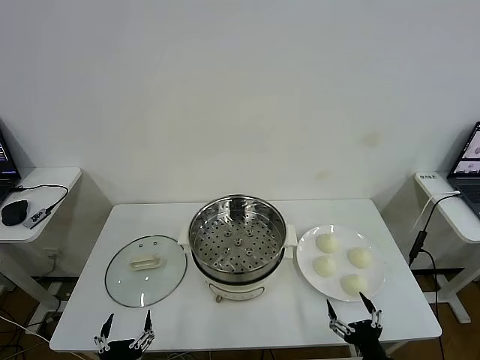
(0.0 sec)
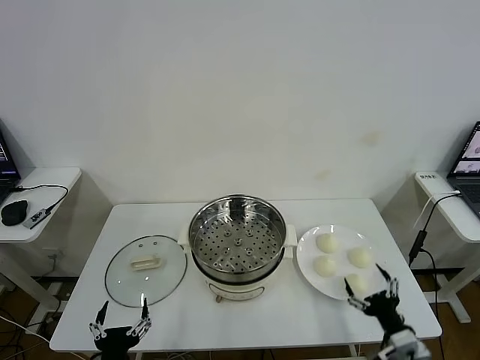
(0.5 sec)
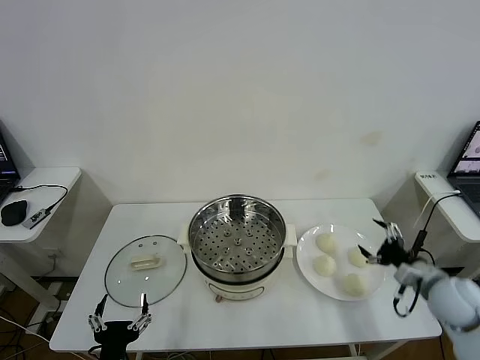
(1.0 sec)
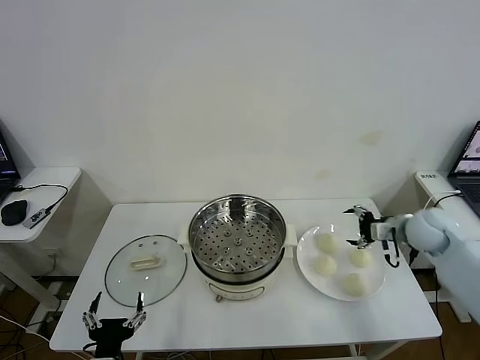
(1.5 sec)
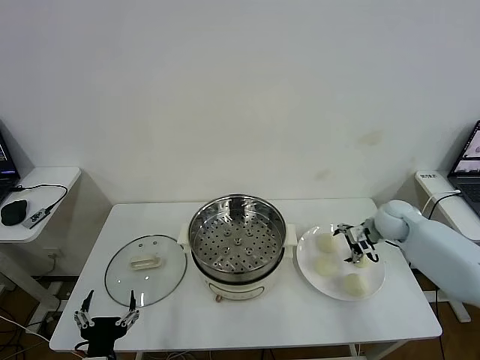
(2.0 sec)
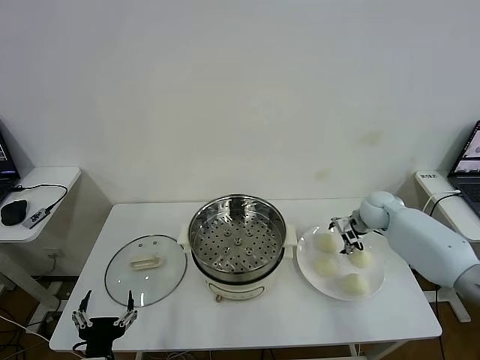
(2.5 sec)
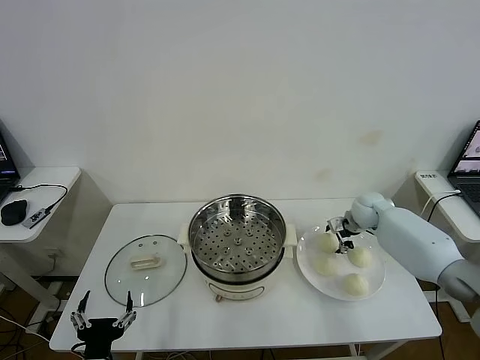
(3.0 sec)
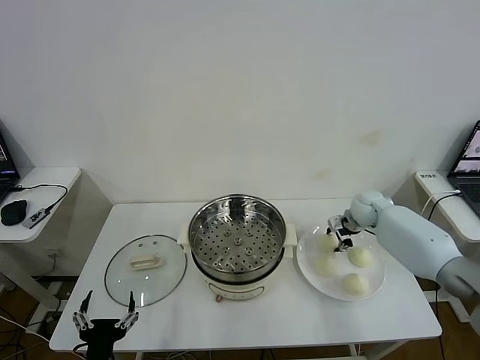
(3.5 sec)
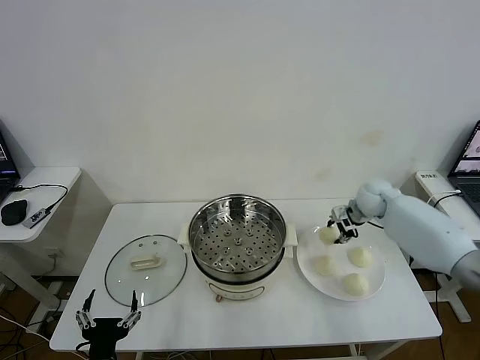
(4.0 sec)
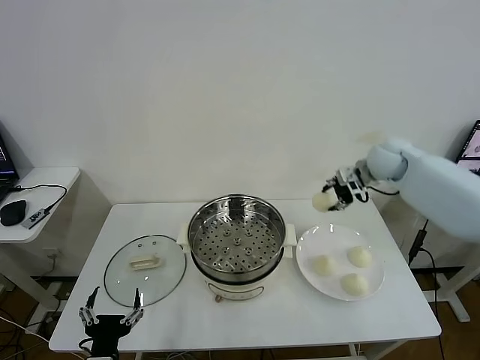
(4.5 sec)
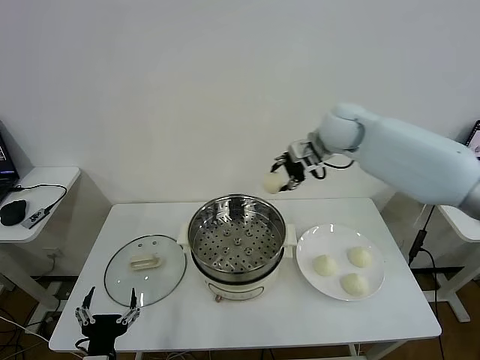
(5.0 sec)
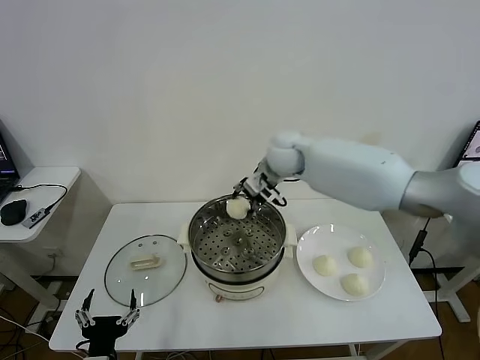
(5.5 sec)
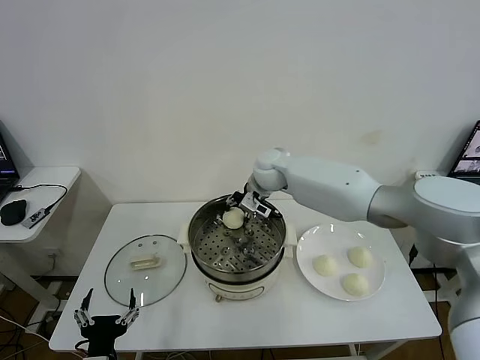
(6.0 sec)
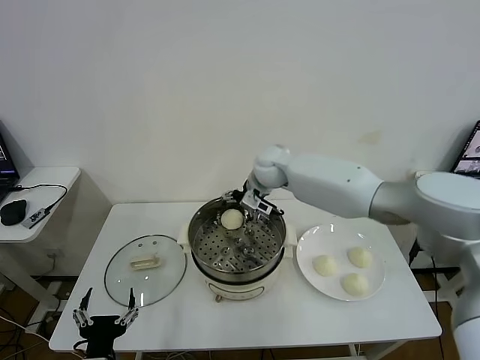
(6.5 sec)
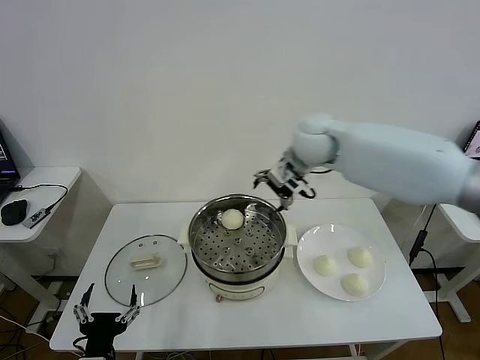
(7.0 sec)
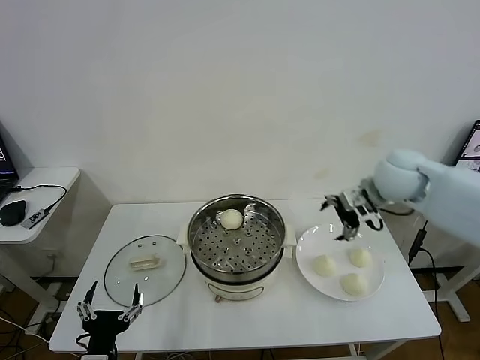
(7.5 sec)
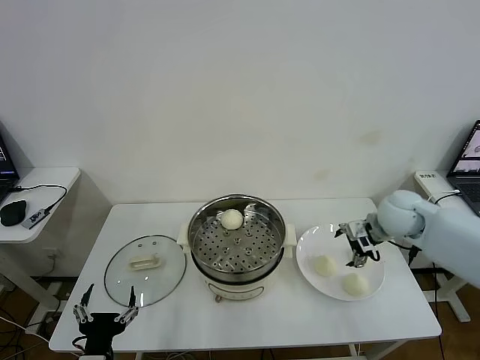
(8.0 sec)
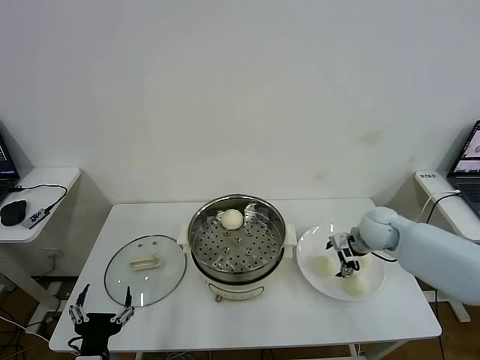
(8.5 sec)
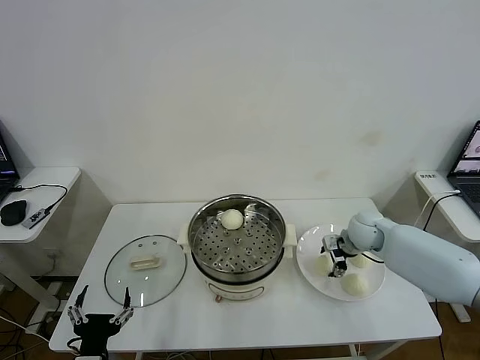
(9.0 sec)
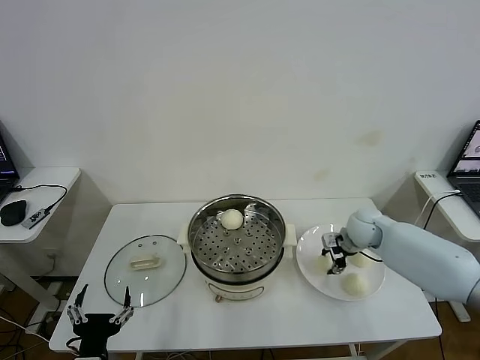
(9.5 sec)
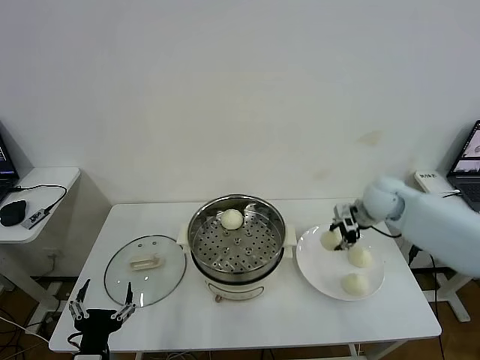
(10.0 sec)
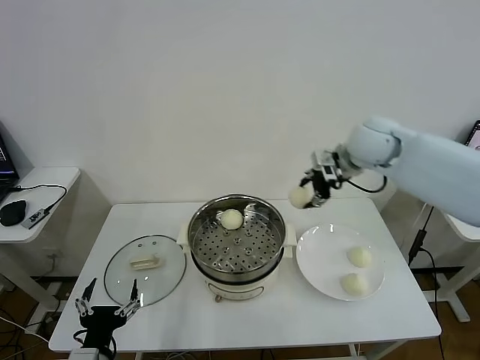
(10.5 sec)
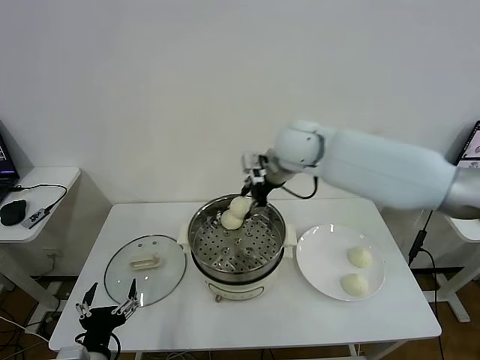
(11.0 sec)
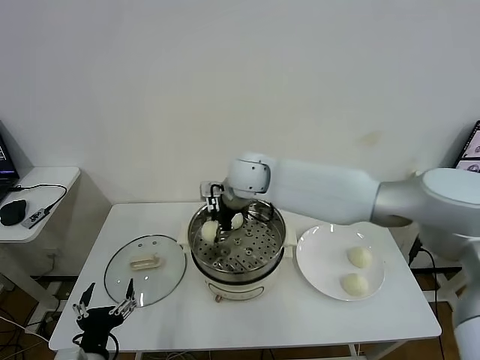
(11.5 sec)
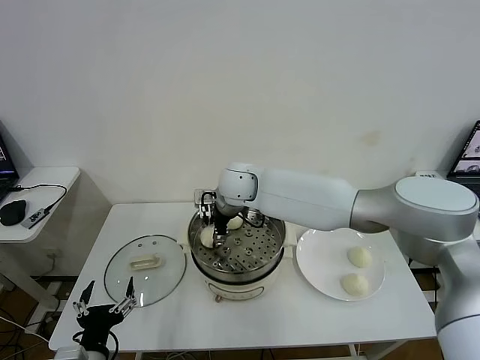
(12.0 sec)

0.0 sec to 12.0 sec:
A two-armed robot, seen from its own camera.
Task of the whole recording: take steamed baozi put them in steamer then cover it.
Step, 0.0 sec to 3.5 sec: Grasp the baozi in the plate with right gripper.
Step, 4.0 sec to 6.0 sec: Place the baozi on the steamer with right gripper.
Step, 6.5 sec to 9.0 sec: Grasp the baozi in the plate with right gripper.
2.0 sec to 4.0 sec: The right gripper shifts roughly 5 cm upward, and closes.
4.0 sec to 6.0 sec: The right gripper moves to the left, about 30 cm.
6.0 sec to 8.0 sec: The right gripper travels to the right and backward by approximately 30 cm, and opens up.
8.0 sec to 10.0 sec: The right gripper heads forward and upward, covering some 10 cm, and closes up.
10.0 sec to 12.0 sec: The right gripper is displaced to the left by about 35 cm, and opens.

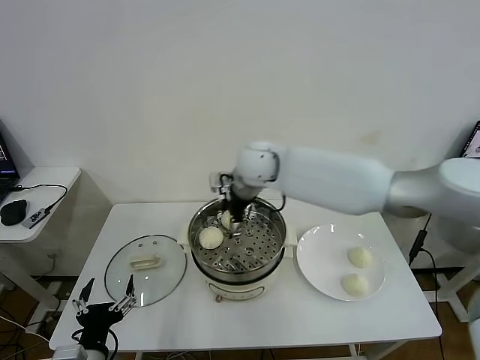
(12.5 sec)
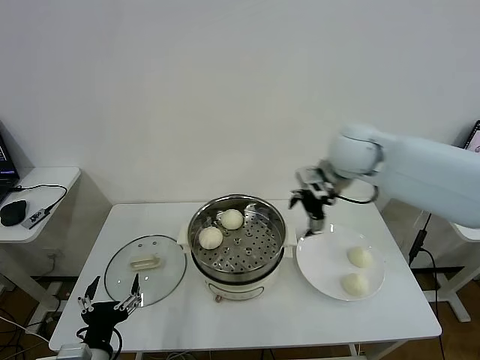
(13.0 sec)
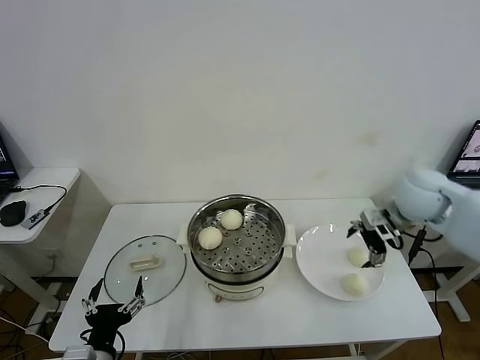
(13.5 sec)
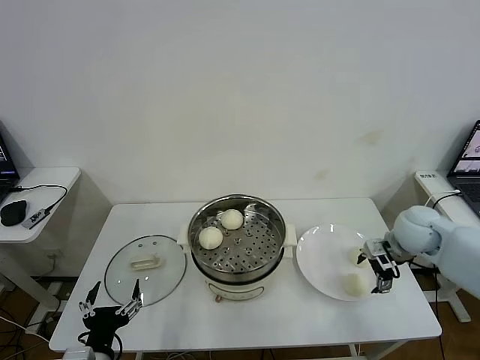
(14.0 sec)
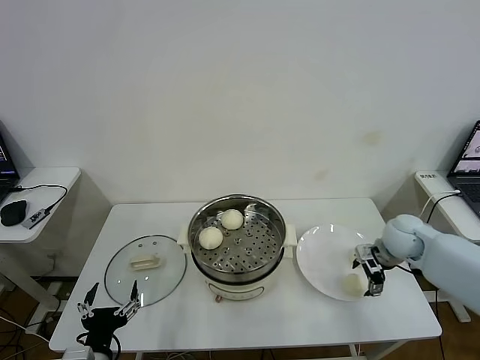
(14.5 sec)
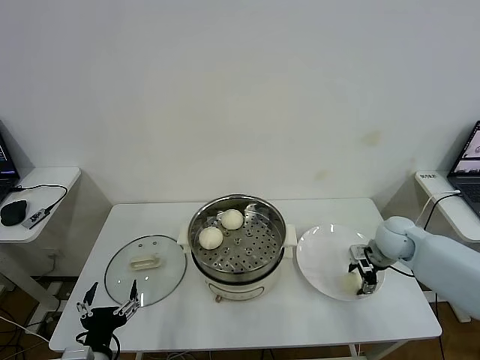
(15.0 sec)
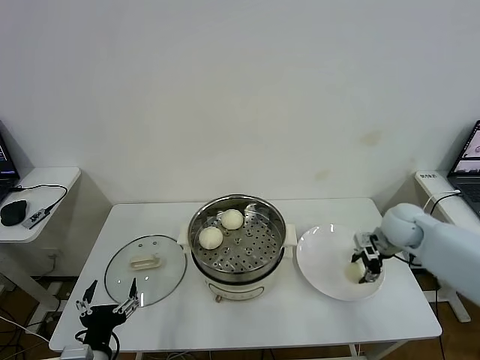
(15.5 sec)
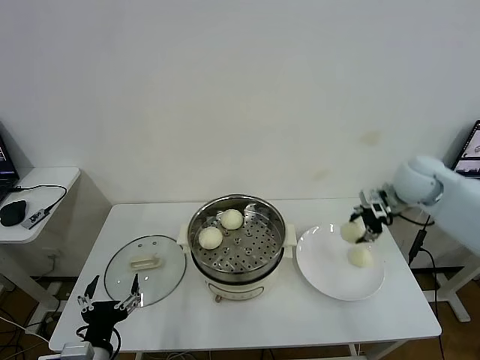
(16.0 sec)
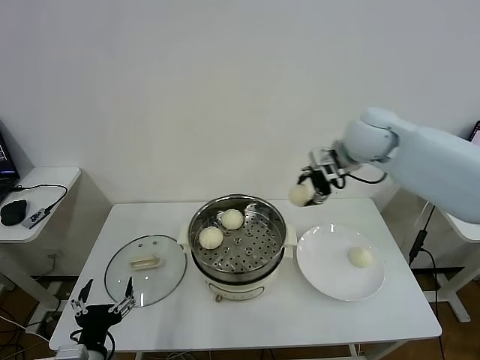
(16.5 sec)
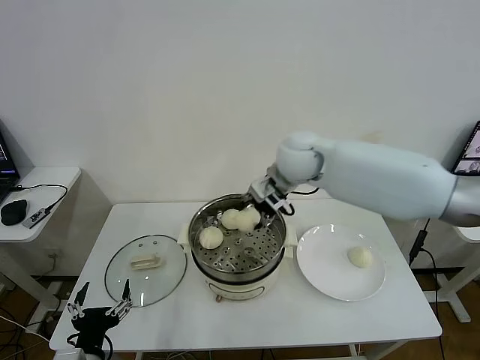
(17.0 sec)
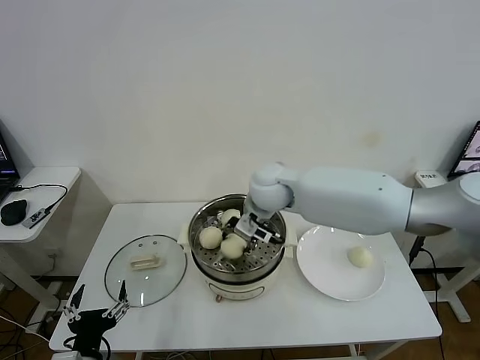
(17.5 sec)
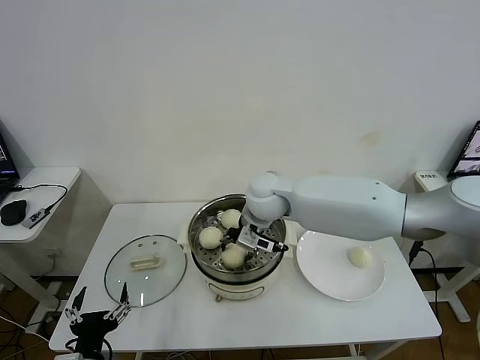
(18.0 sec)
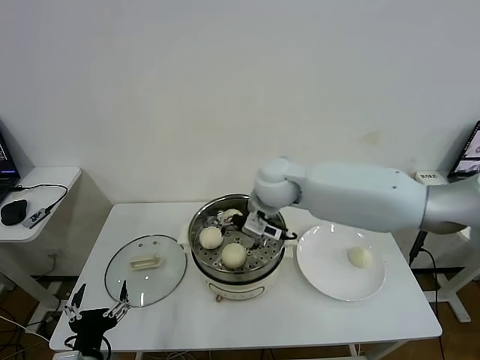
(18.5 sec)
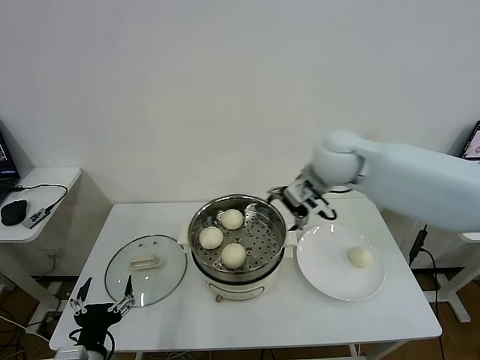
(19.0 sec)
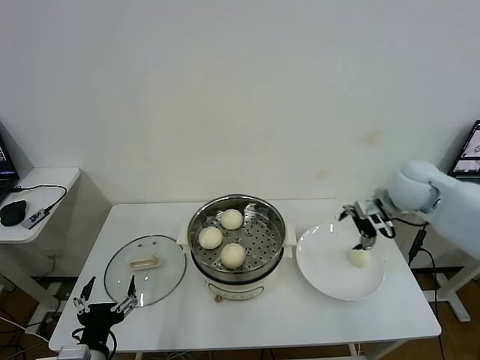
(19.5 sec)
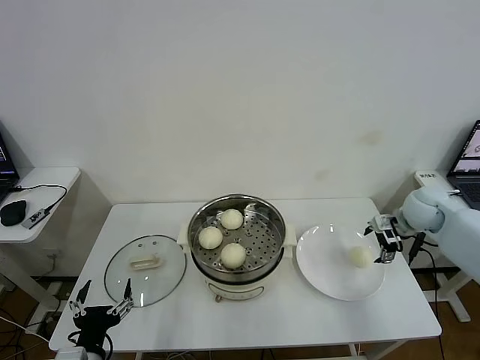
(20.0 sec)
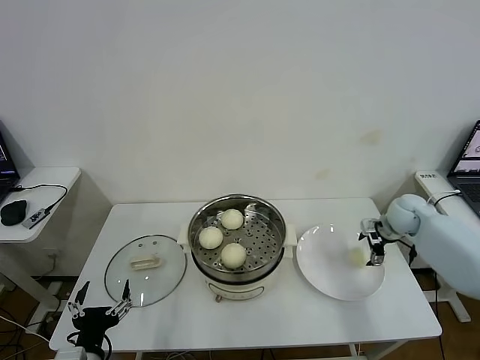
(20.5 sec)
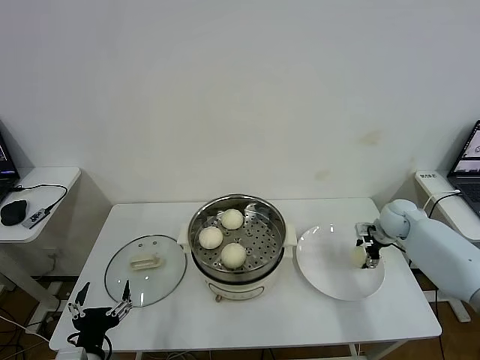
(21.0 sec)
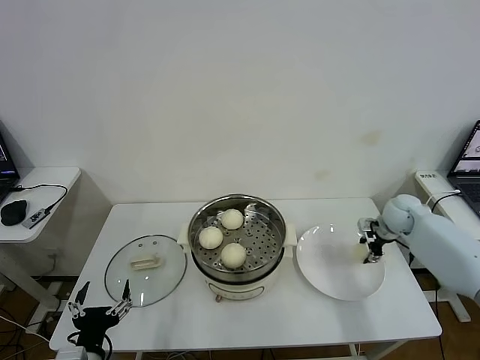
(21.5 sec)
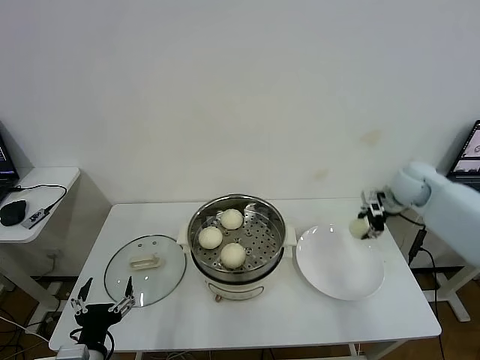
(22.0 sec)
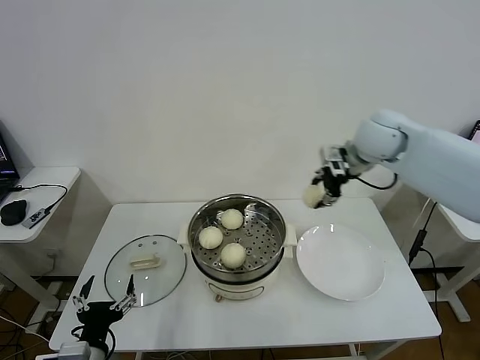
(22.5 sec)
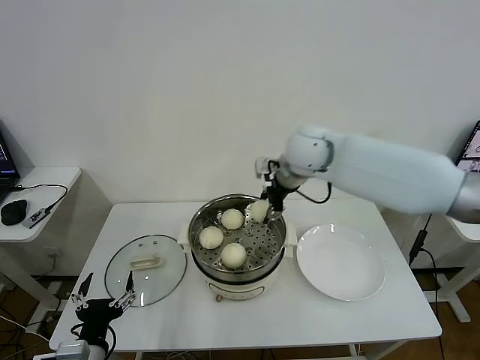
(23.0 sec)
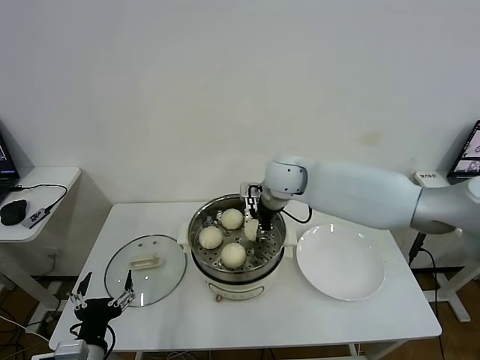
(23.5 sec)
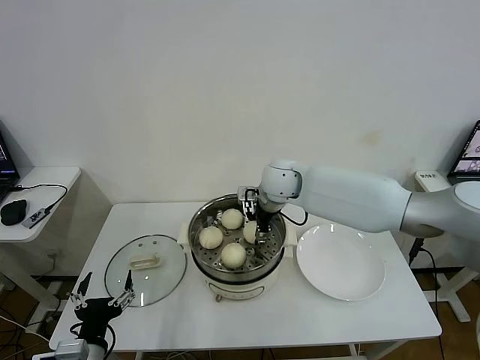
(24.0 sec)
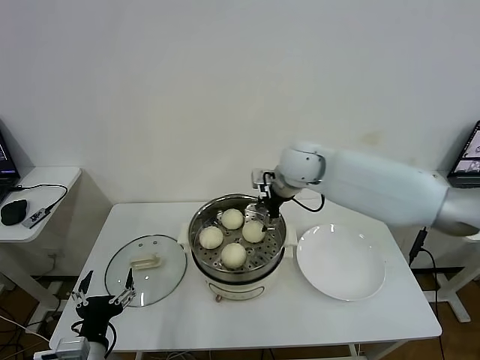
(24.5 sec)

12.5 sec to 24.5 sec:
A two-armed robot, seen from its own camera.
Task of the whole recording: take steamed baozi put them in steamer then cover it.
Step, 12.5 sec to 15.0 sec: Grasp the baozi in the plate with right gripper.
Step, 15.5 sec to 18.0 sec: Place the baozi on the steamer with right gripper.
Step, 18.5 sec to 21.0 sec: Grasp the baozi in the plate with right gripper.
Step, 21.5 sec to 24.0 sec: Place the baozi on the steamer with right gripper.
12.5 sec to 14.5 sec: The right gripper shifts roughly 35 cm to the right and downward.
14.5 sec to 16.5 sec: The right gripper goes about 30 cm upward and to the left, and closes.
16.5 sec to 18.5 sec: The right gripper is displaced to the left and downward by roughly 15 cm, and opens.
18.5 sec to 20.5 sec: The right gripper heads to the right and downward, covering roughly 35 cm.
20.5 sec to 22.5 sec: The right gripper goes approximately 25 cm upward and to the left, and closes.
22.5 sec to 24.5 sec: The right gripper moves to the left and downward, roughly 15 cm, and opens its fingers.

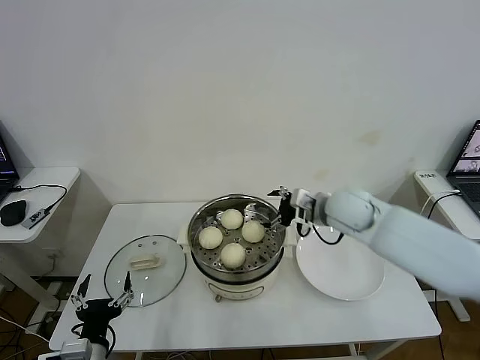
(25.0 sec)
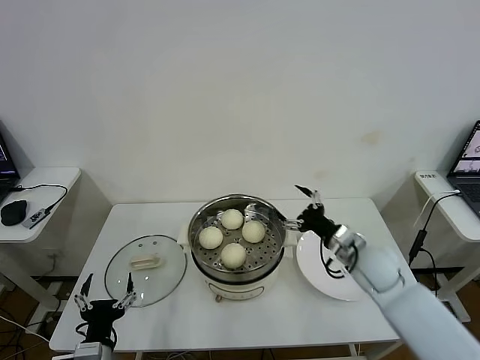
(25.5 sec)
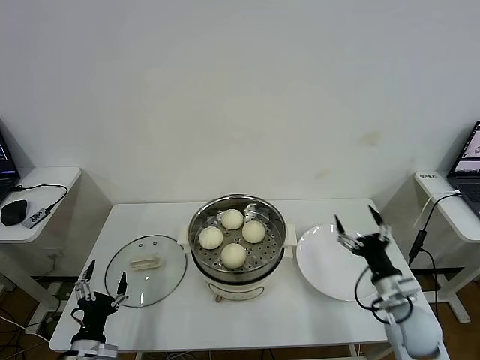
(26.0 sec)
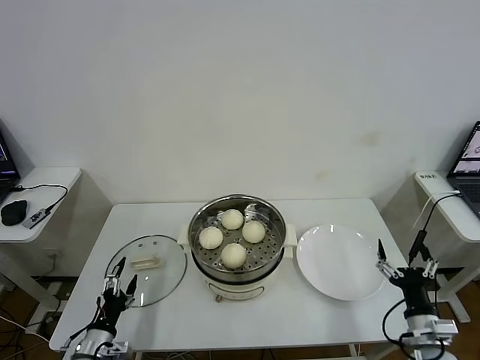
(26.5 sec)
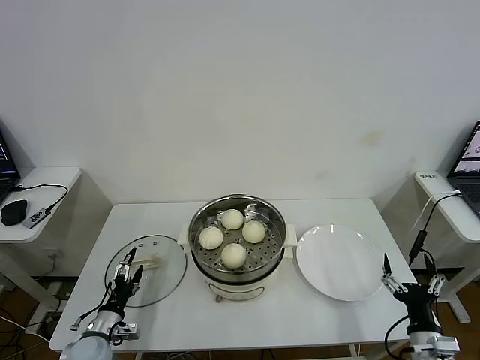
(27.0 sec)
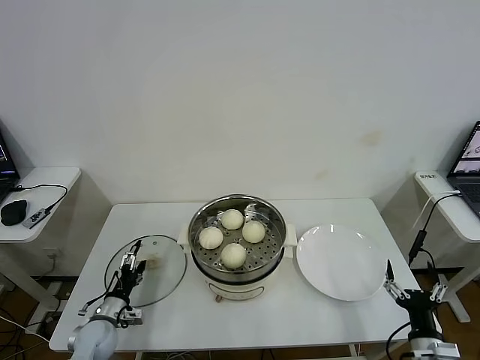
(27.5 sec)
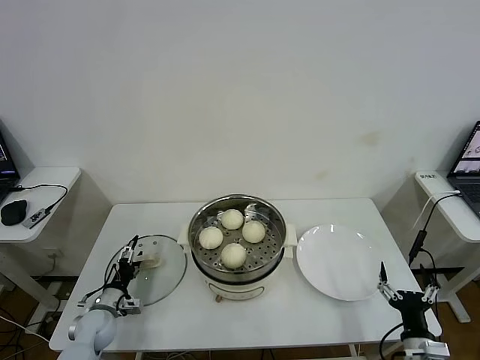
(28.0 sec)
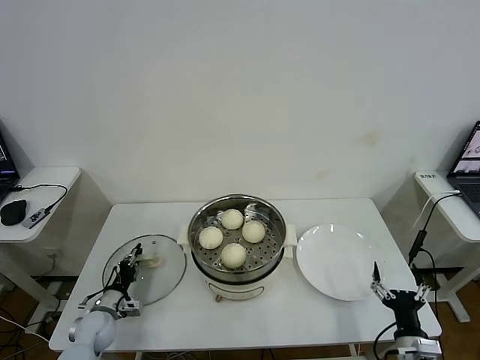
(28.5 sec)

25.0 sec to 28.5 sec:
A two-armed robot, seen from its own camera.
Task of the whole recording: take steamed baozi put them in steamer then cover it.
25.0 sec to 27.0 sec: The left gripper heads downward, forward and to the left, covering approximately 20 cm. The right gripper travels backward, downward and to the right by some 40 cm.
27.0 sec to 28.5 sec: The left gripper is displaced forward by roughly 5 cm, and closes up.
